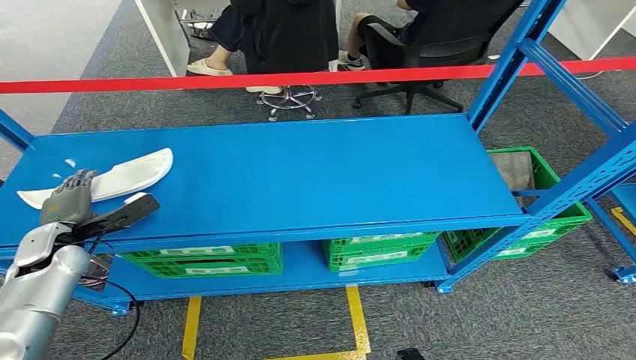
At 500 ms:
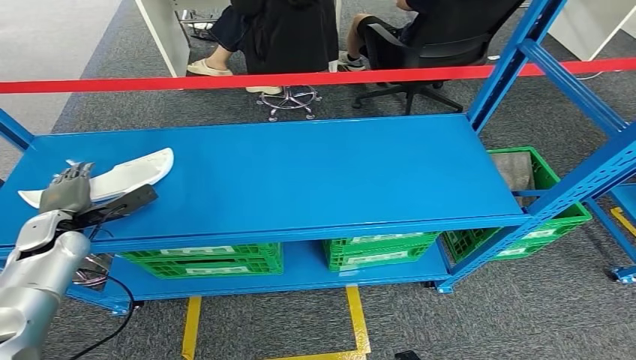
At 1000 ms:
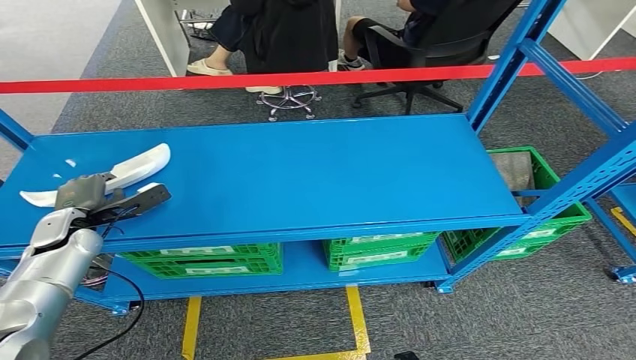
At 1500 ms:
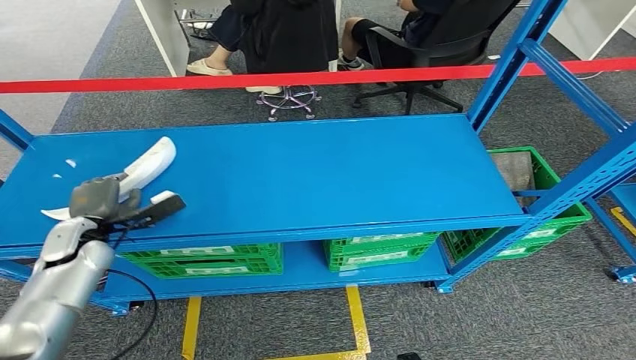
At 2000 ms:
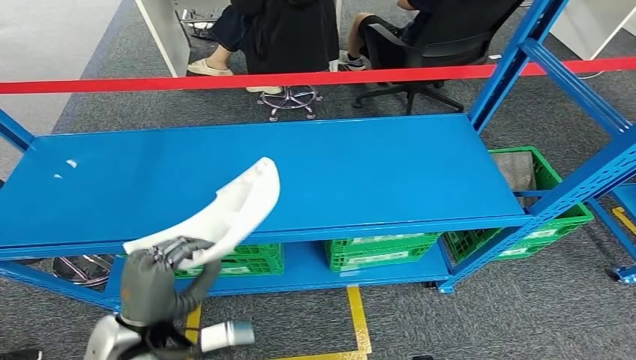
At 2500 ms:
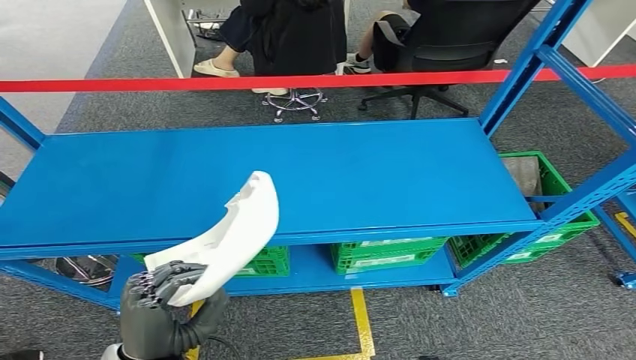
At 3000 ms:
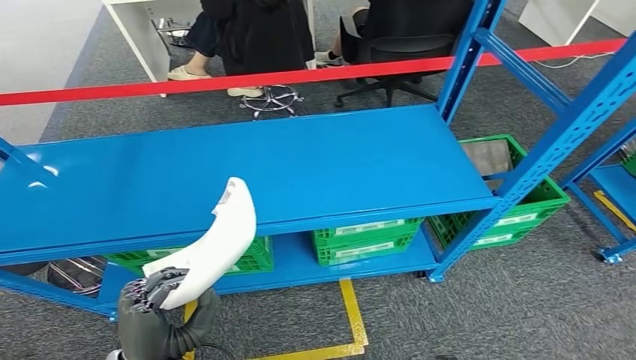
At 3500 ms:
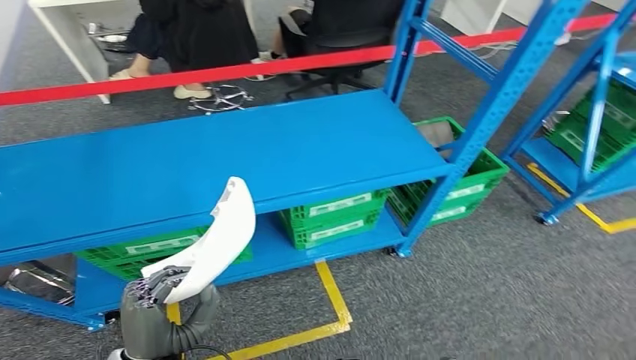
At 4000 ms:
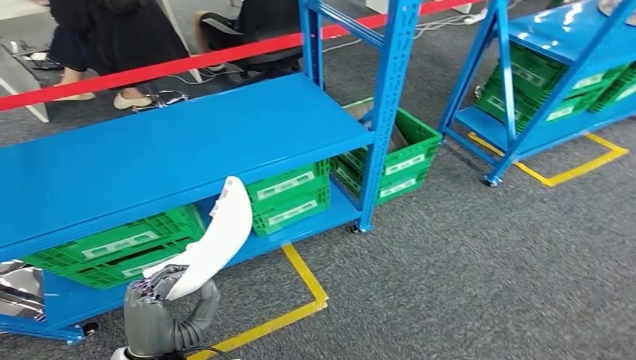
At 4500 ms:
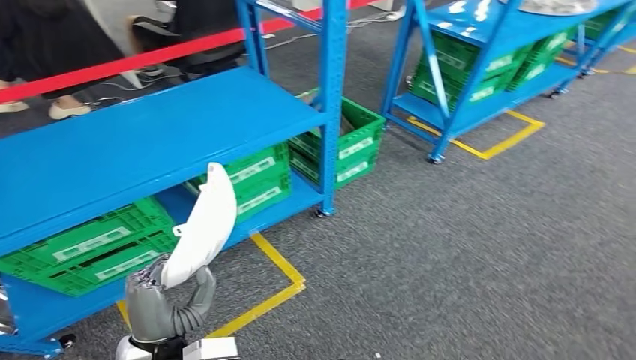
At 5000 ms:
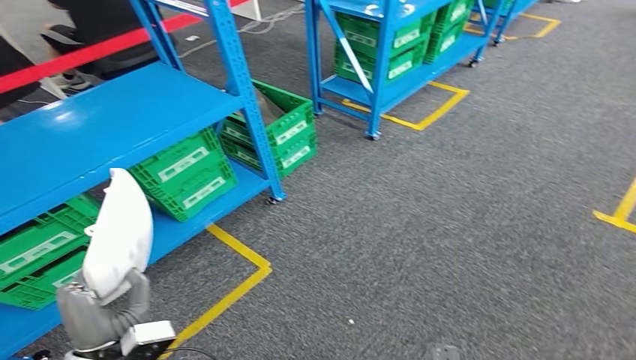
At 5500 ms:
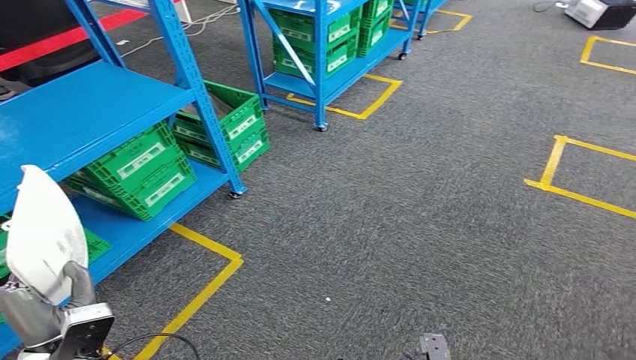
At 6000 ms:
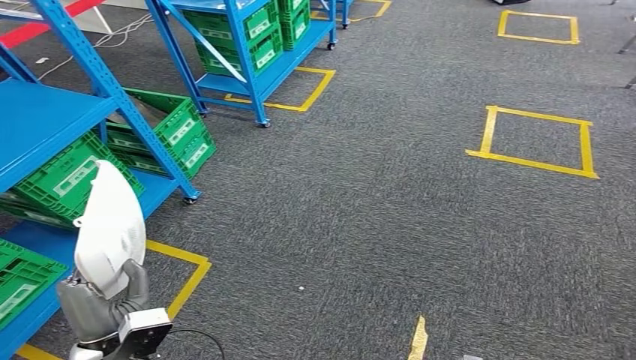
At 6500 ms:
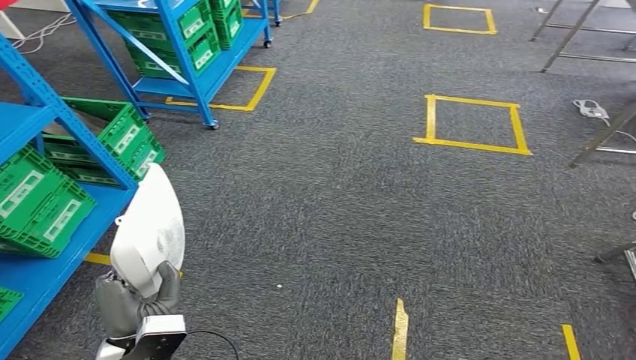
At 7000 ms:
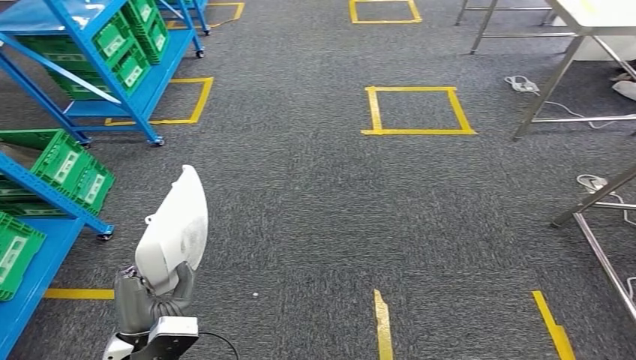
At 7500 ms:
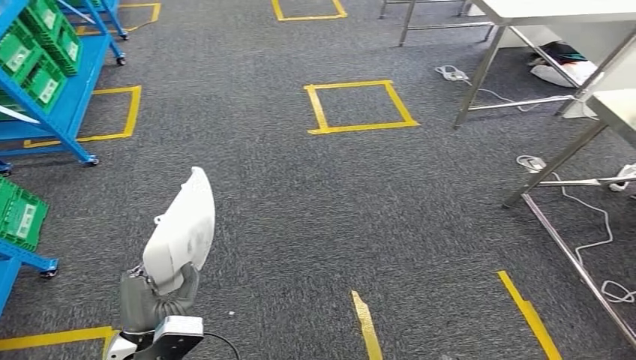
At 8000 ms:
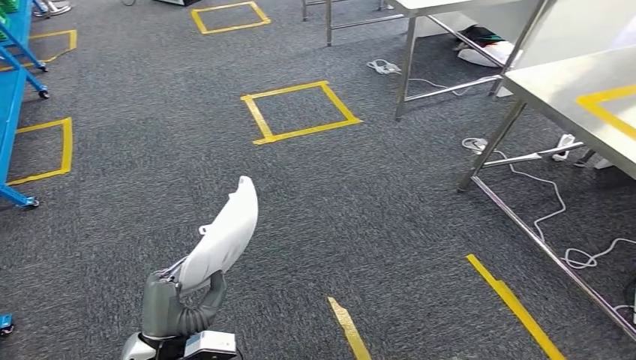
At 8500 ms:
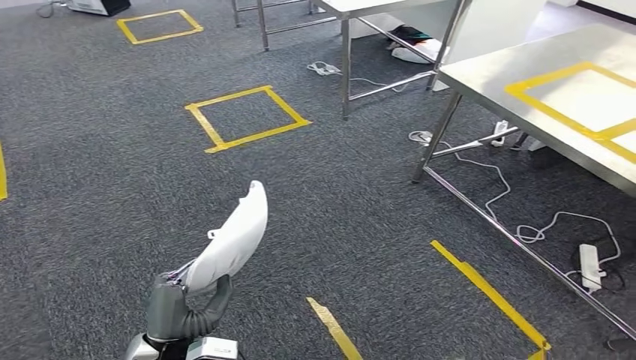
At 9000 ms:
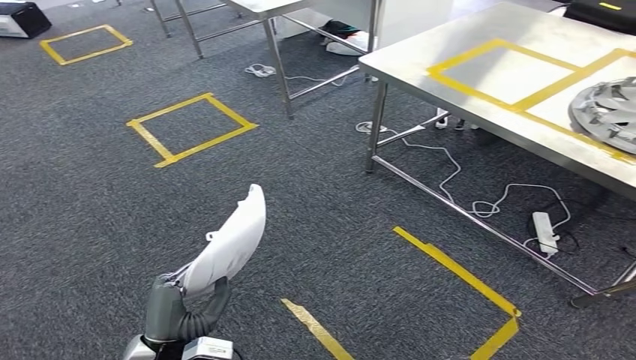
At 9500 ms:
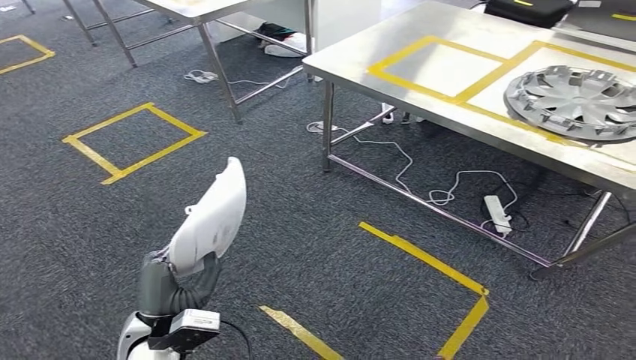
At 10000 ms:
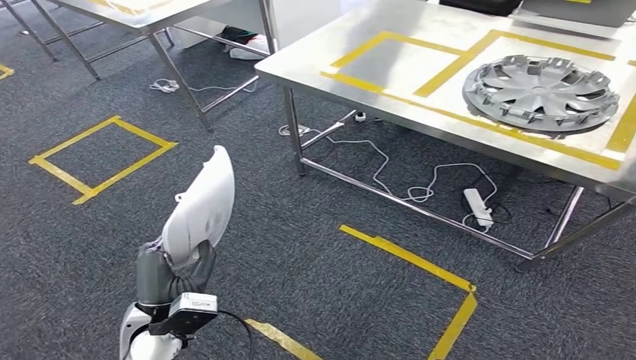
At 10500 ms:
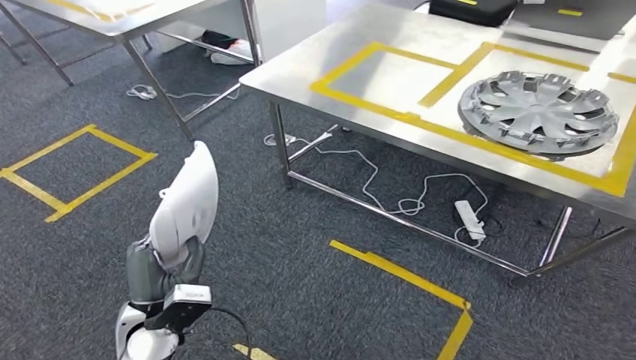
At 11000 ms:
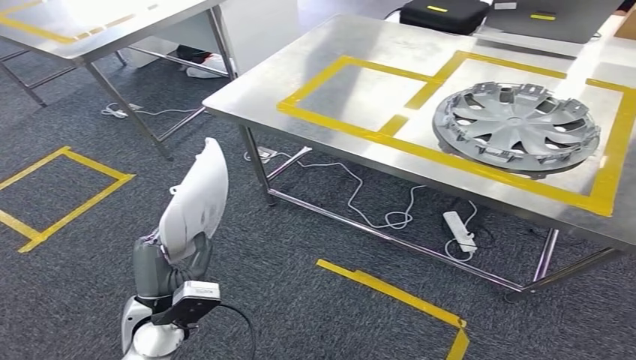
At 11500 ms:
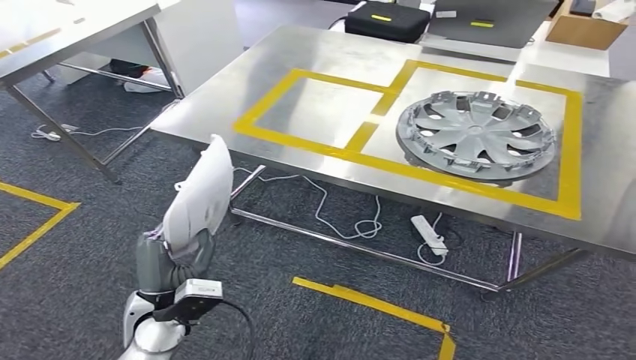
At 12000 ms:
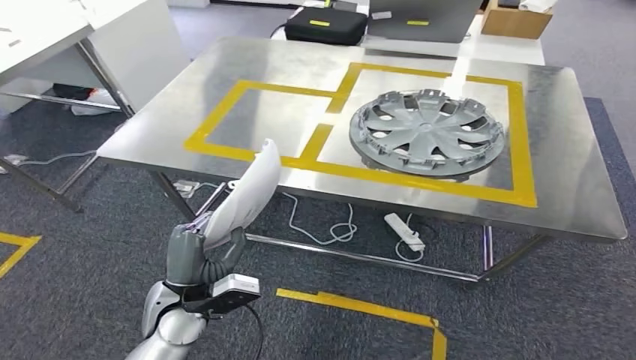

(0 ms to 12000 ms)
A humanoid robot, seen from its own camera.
Step, 0 ms - 3000 ms: Take small components from the rack.

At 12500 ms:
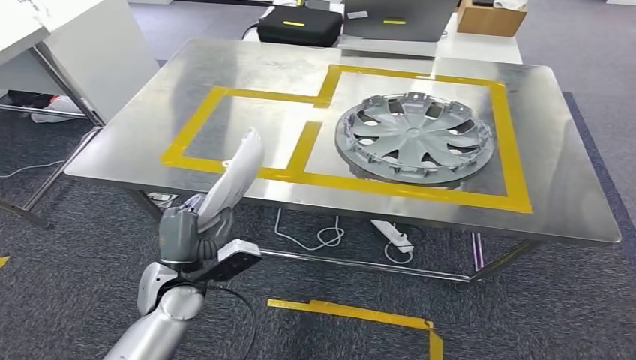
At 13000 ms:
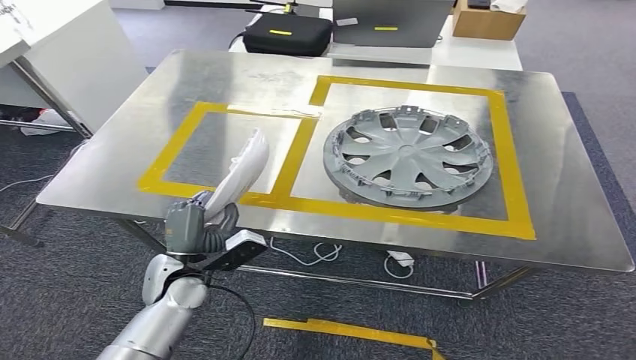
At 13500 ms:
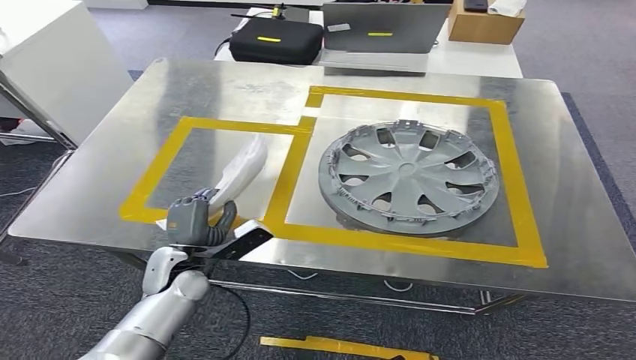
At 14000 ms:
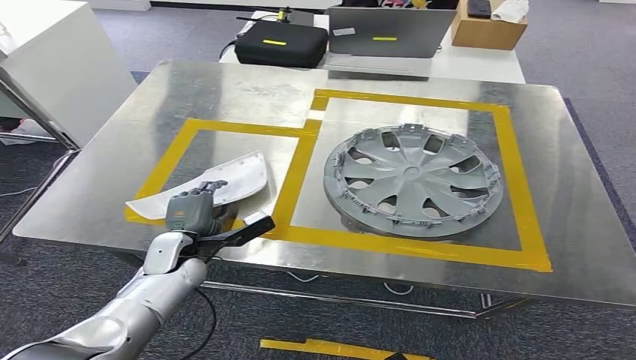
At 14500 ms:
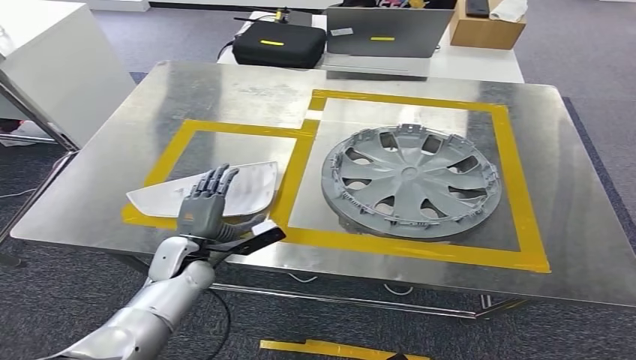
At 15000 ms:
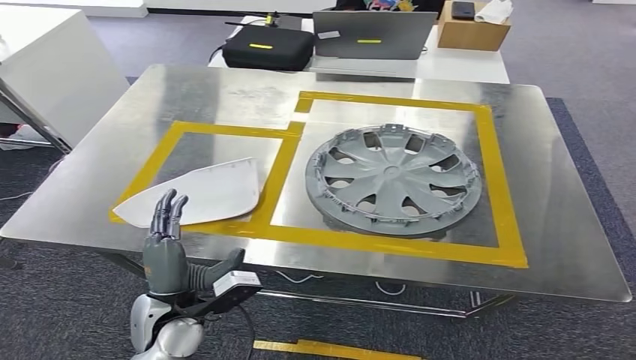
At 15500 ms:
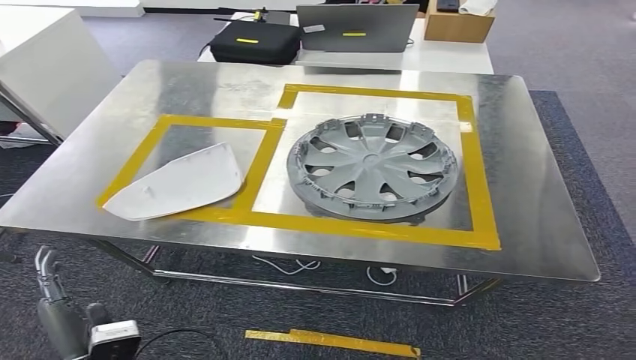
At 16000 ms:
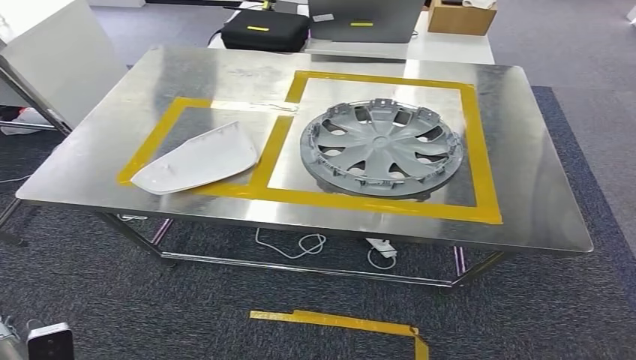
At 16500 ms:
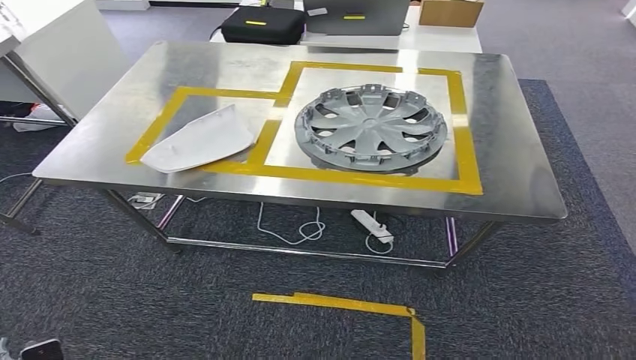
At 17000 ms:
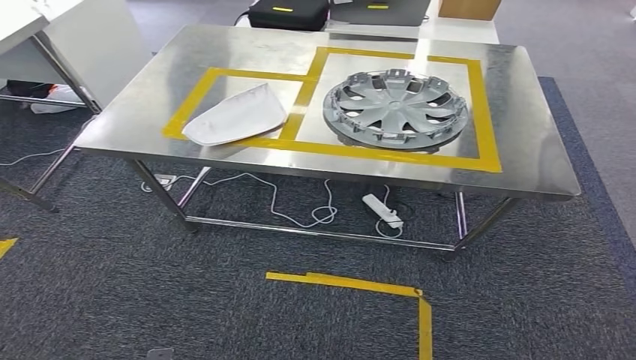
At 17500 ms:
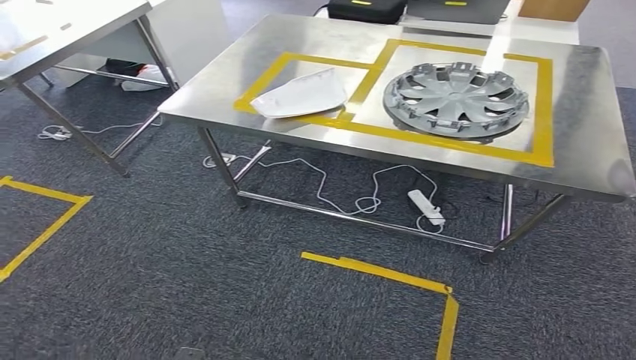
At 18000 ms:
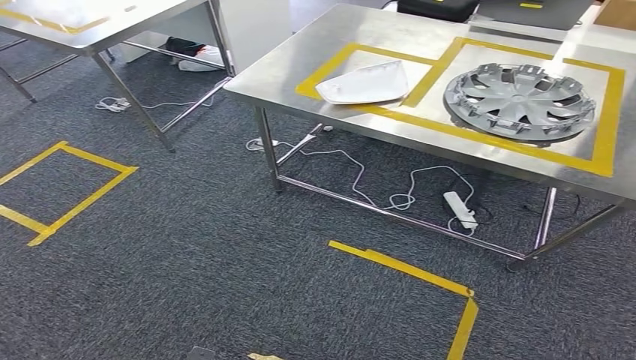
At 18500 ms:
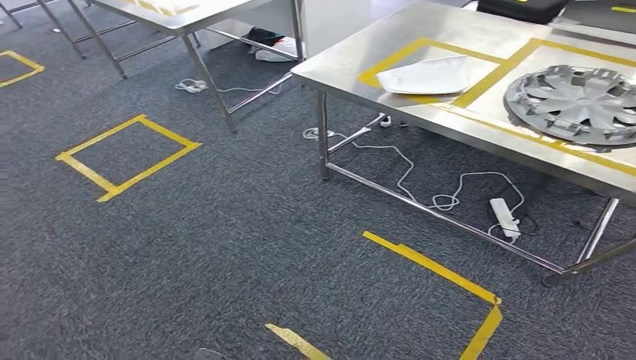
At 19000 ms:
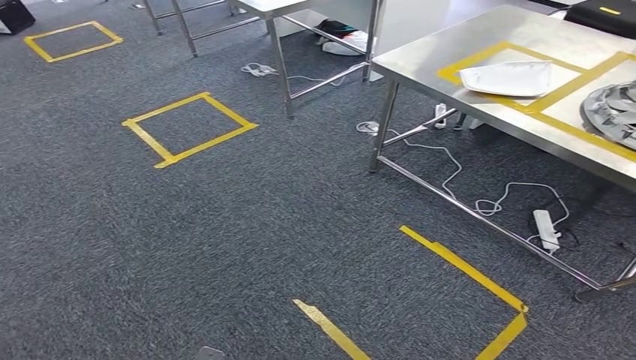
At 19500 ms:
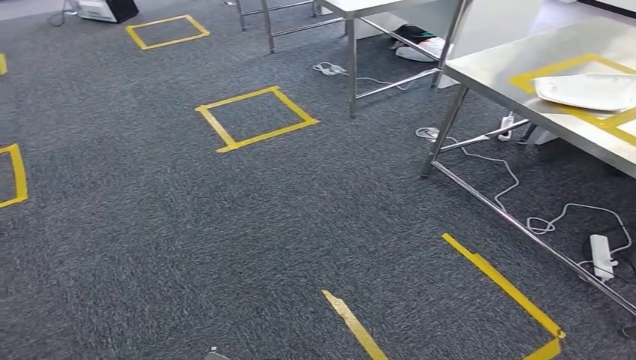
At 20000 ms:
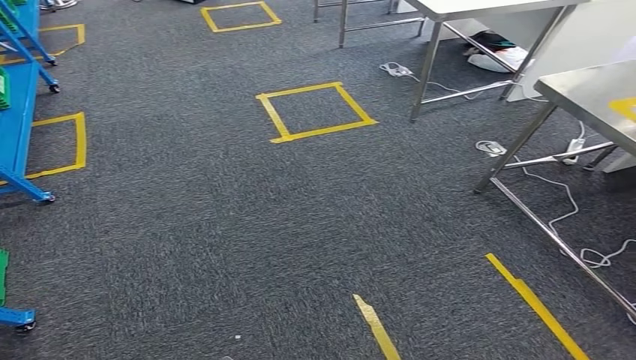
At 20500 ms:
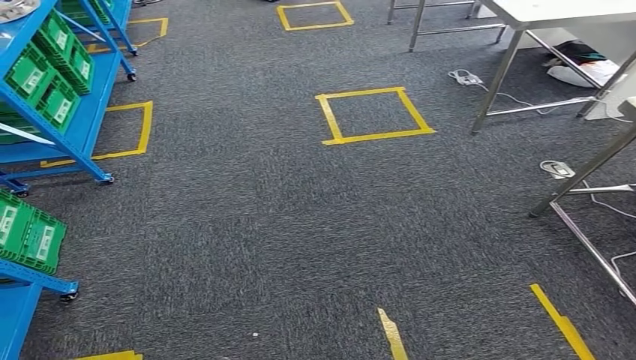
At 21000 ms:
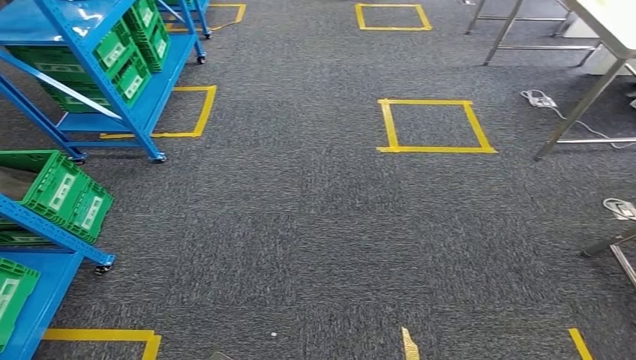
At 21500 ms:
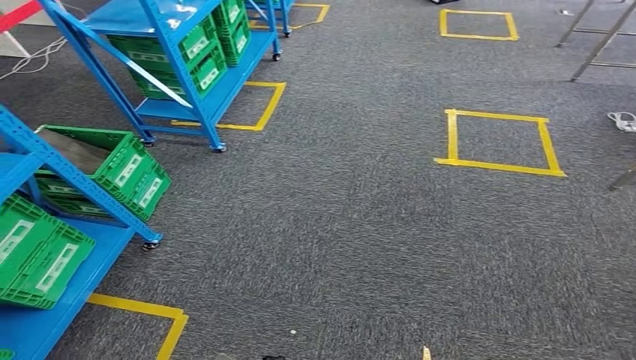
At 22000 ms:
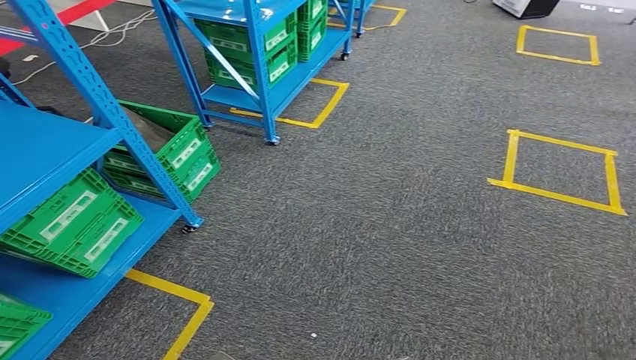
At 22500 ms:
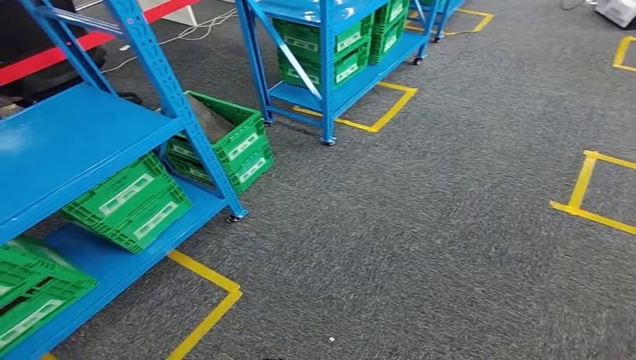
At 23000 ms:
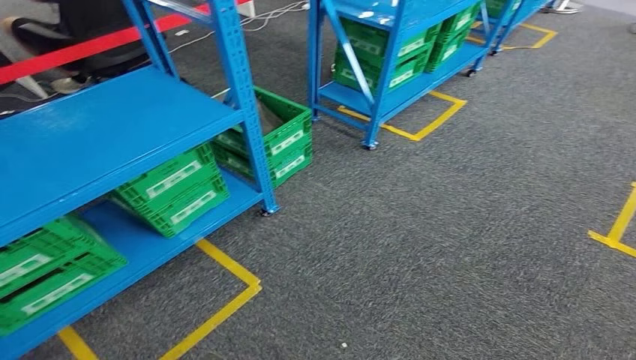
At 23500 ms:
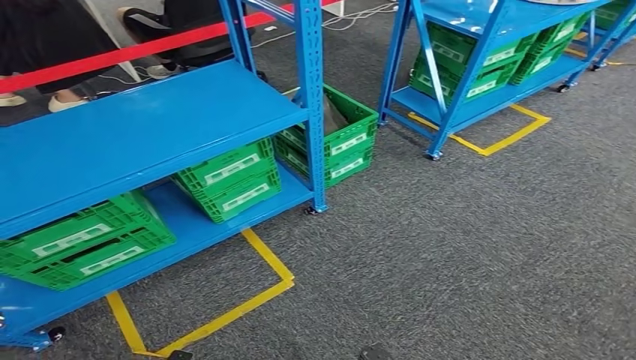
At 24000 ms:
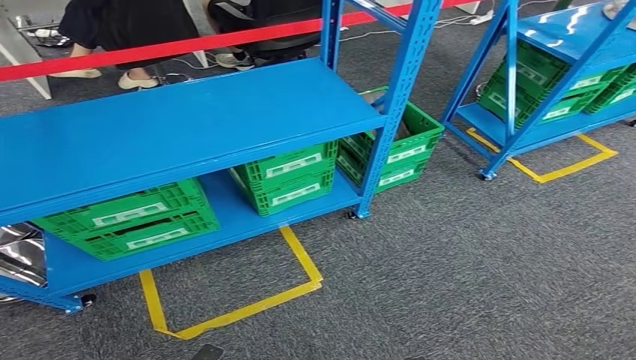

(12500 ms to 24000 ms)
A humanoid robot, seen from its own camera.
Step, 13000 ms - 14500 ms: Insert the small parts into the corresponding holes on the workbench.
